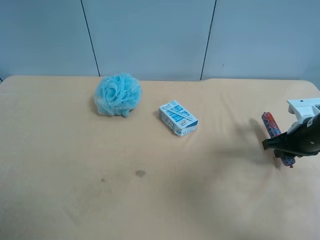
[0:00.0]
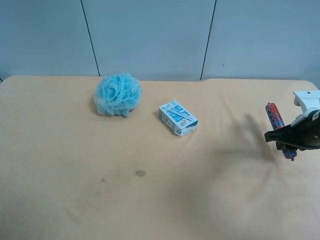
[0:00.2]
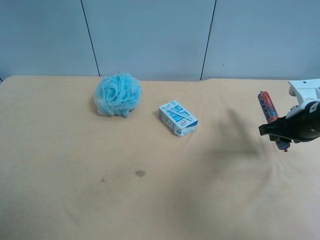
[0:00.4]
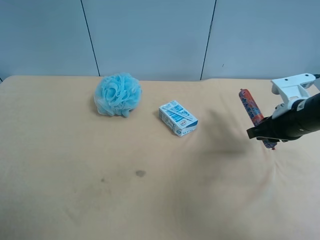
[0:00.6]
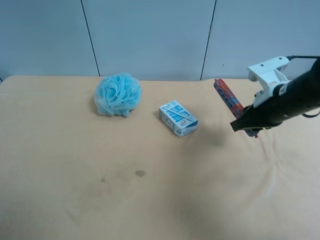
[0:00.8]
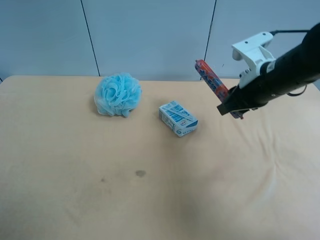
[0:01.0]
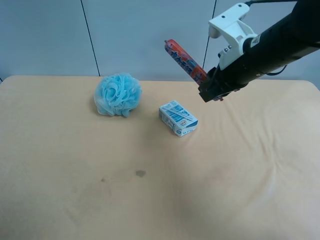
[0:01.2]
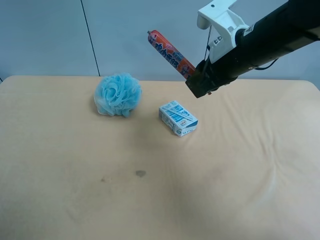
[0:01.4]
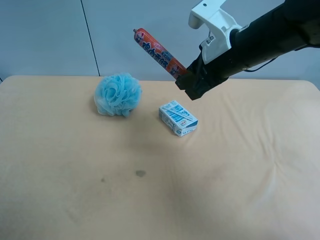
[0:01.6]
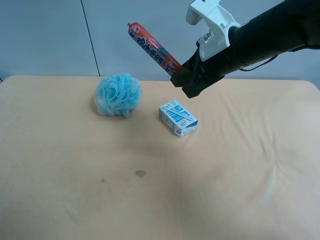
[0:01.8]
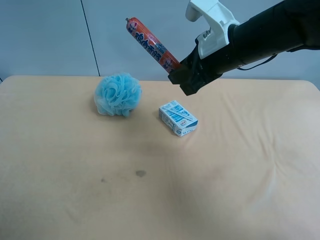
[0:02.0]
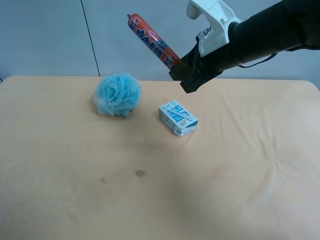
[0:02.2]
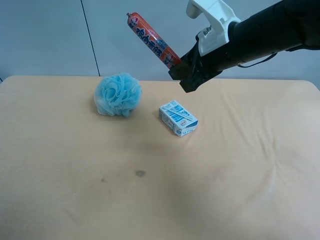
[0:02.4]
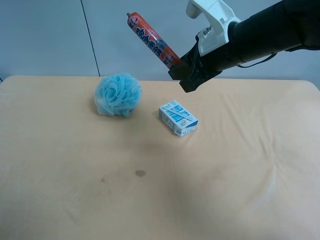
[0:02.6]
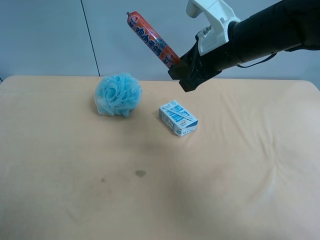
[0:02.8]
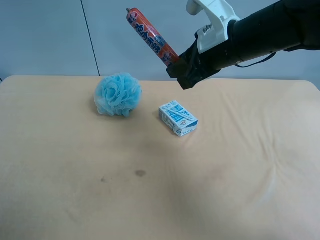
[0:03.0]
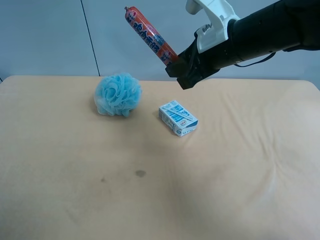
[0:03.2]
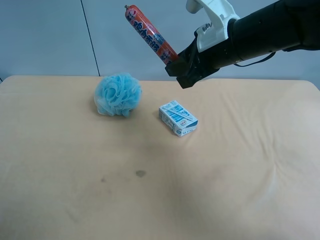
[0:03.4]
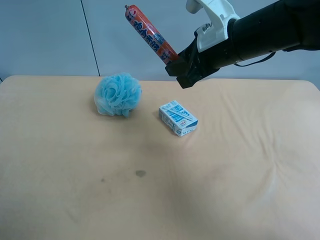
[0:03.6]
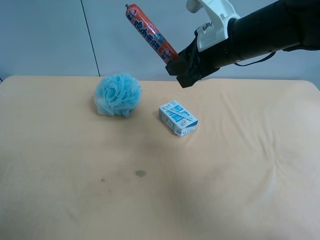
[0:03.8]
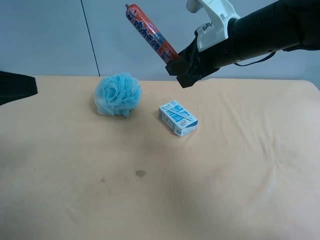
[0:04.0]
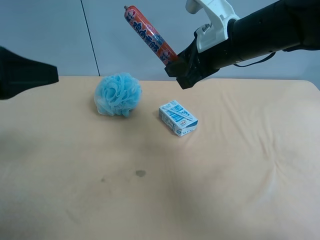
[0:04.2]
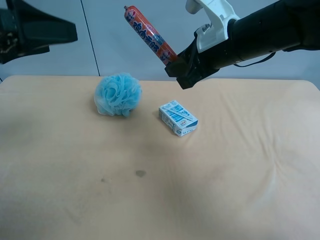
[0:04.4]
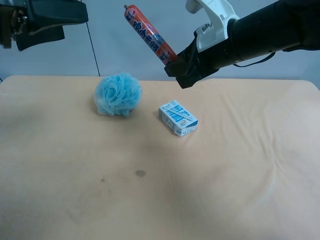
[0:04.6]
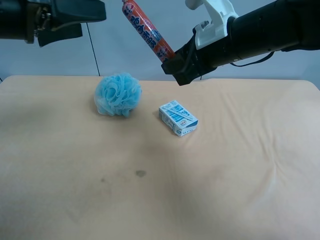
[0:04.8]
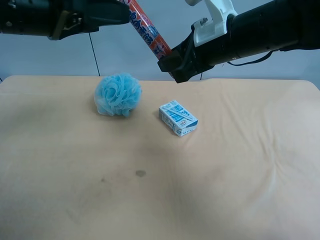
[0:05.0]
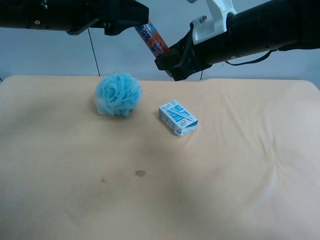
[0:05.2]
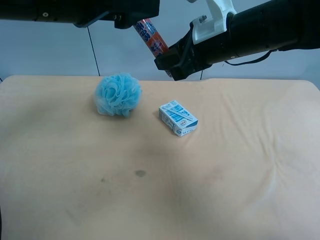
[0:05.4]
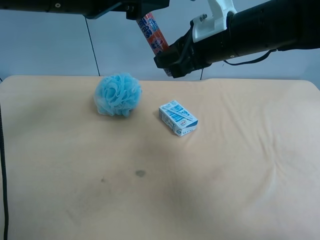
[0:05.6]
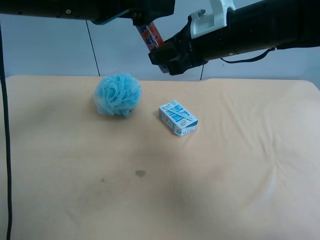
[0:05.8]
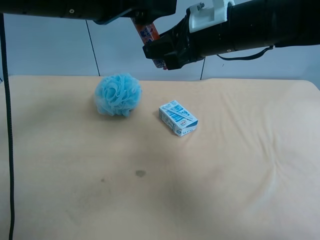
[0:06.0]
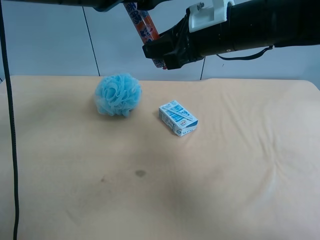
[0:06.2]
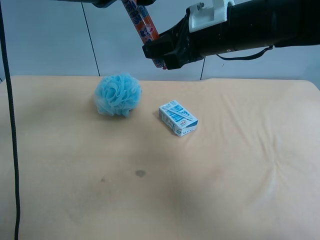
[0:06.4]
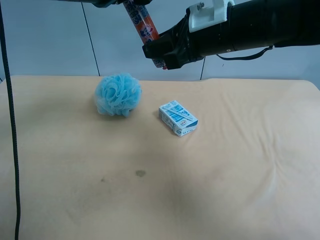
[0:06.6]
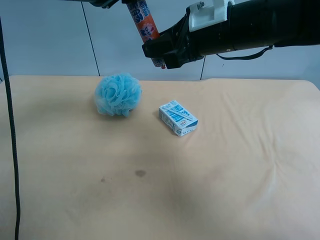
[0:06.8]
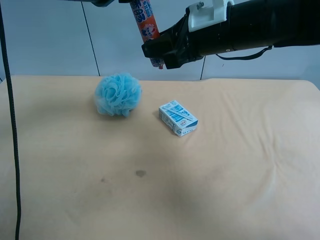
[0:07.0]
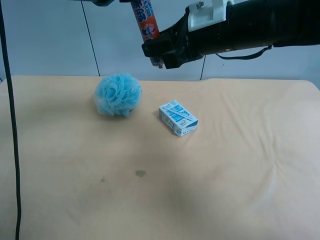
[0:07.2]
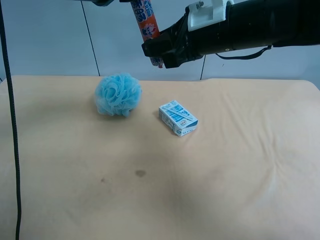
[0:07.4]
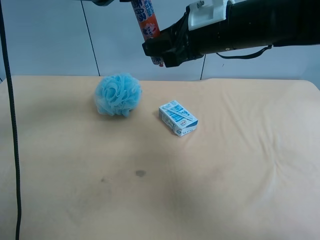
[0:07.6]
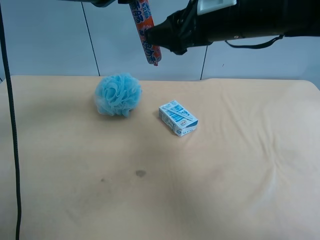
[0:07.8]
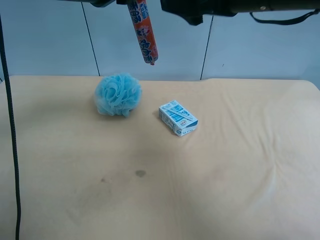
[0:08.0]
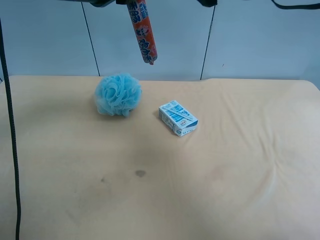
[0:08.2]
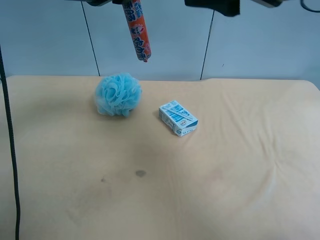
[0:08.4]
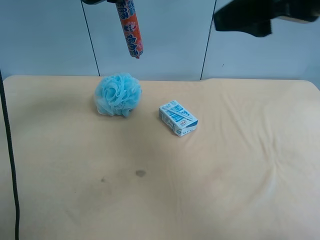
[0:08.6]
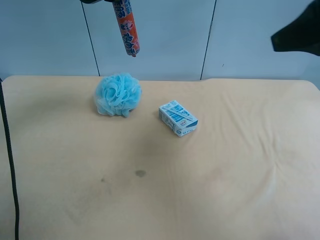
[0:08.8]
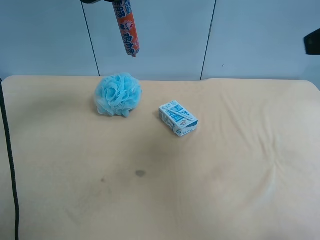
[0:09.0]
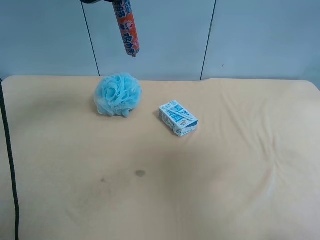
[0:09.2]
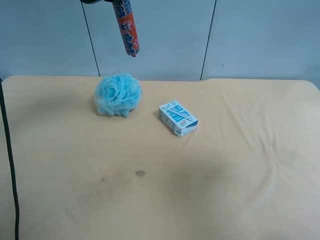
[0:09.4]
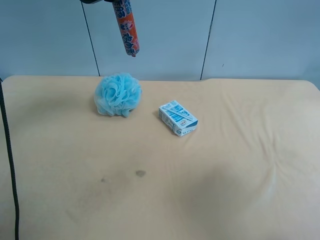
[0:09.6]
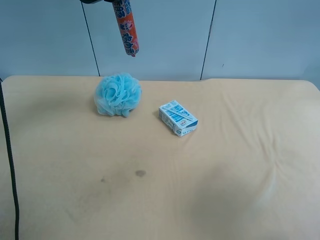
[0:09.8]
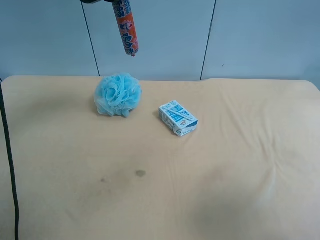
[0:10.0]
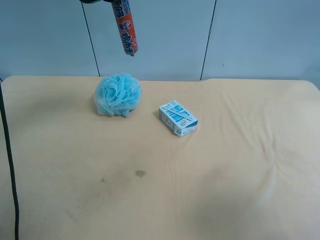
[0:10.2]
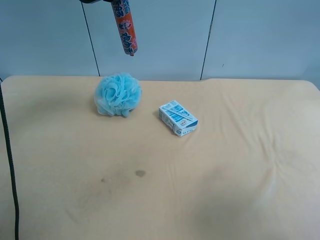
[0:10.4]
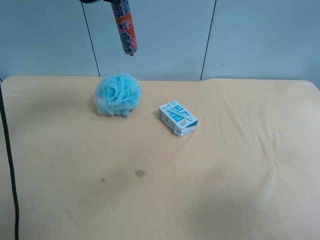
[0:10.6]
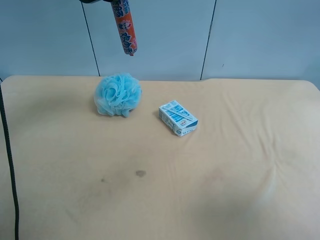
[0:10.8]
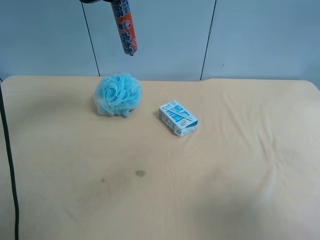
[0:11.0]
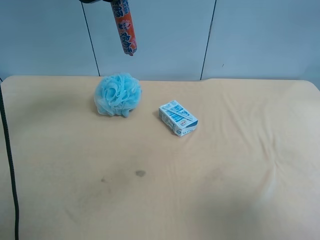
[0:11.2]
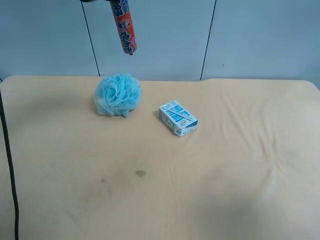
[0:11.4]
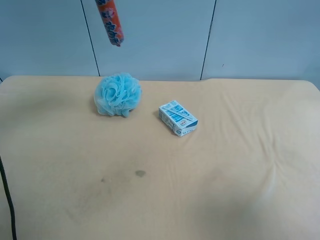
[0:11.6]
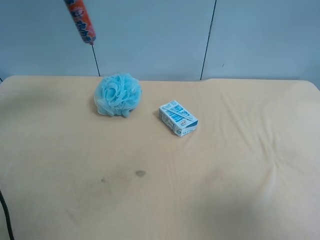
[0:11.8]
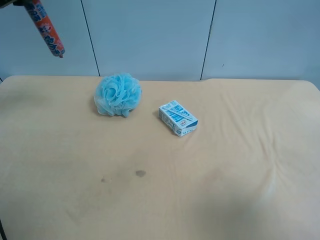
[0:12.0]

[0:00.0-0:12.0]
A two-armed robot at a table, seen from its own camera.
Task of the whole recording: use the right gripper to pick up the item and transfer it from the right gripper to the left gripper.
0:00.0 to 0:01.6: The right gripper heads to the left and upward, covering some 25 cm.
0:01.6 to 0:03.0: The grippers make only small movements.
0:03.0 to 0:04.4: The left gripper is displaced forward by about 20 cm.
0:04.4 to 0:06.0: The left gripper is displaced to the right and forward by about 15 cm.
0:06.0 to 0:07.6: The left gripper closes its fingers.
0:07.6 to 0:09.0: The right gripper goes some 25 cm backward, to the right and upward, and opens up.
0:09.0 to 0:10.4: The right gripper heads backward, downward and to the right, covering about 15 cm.
0:10.4 to 0:12.0: The left gripper shifts about 15 cm to the left.

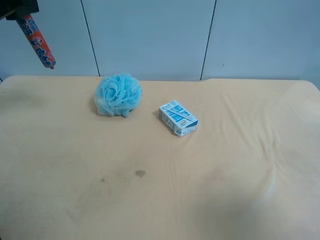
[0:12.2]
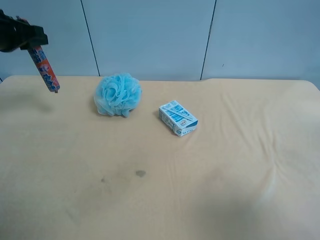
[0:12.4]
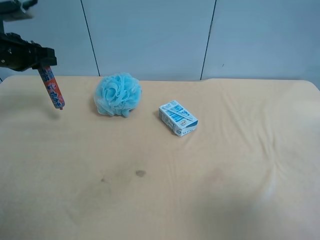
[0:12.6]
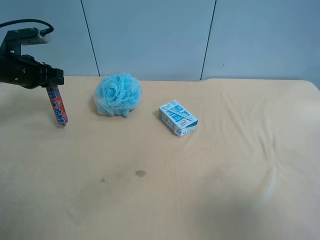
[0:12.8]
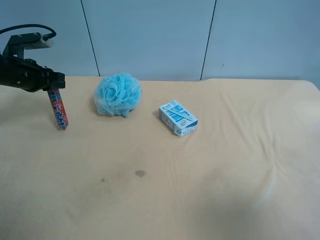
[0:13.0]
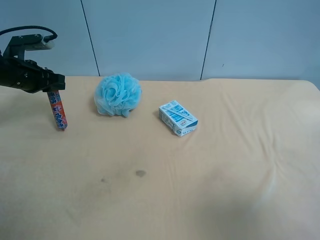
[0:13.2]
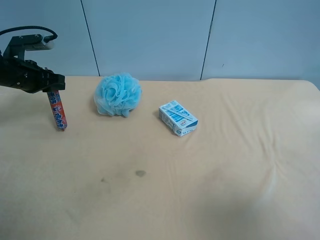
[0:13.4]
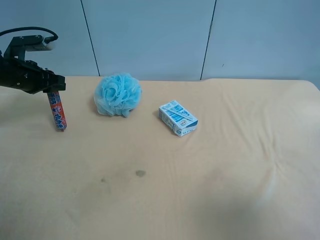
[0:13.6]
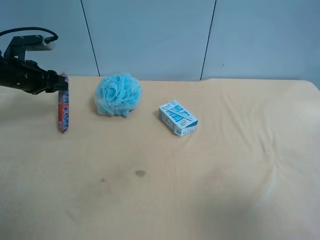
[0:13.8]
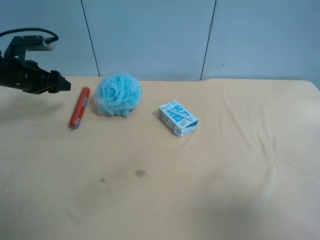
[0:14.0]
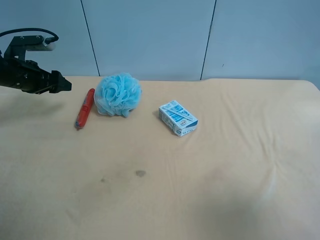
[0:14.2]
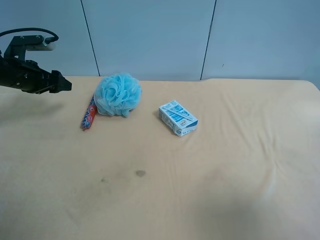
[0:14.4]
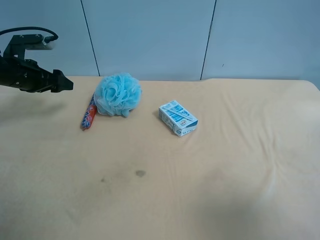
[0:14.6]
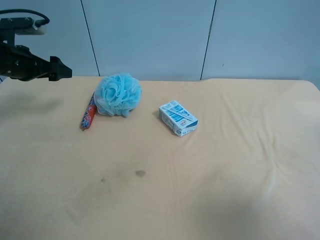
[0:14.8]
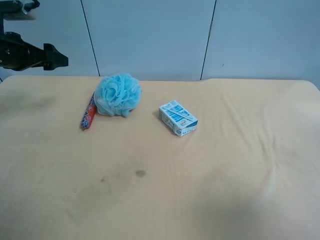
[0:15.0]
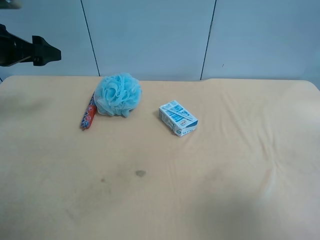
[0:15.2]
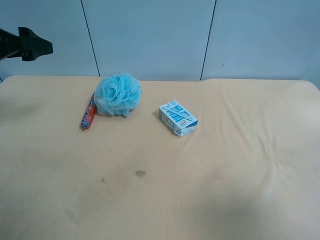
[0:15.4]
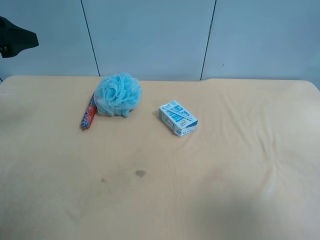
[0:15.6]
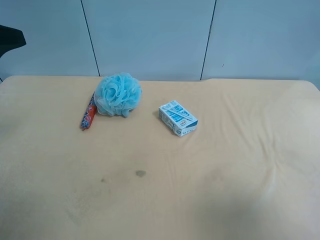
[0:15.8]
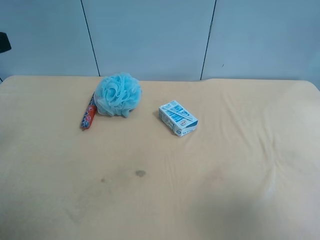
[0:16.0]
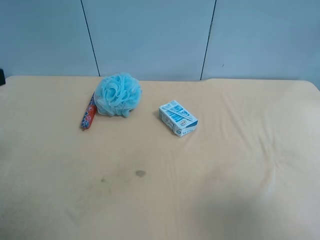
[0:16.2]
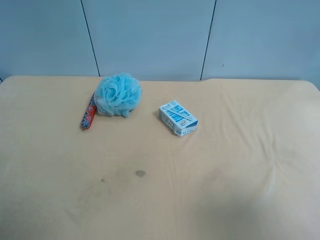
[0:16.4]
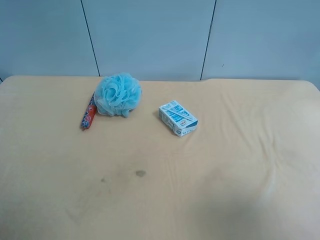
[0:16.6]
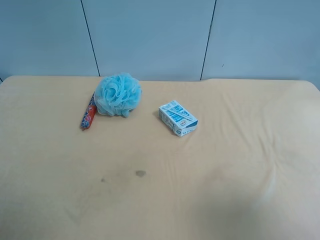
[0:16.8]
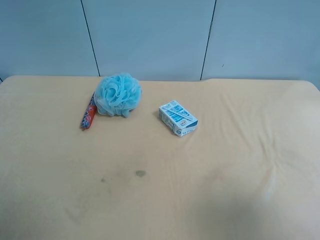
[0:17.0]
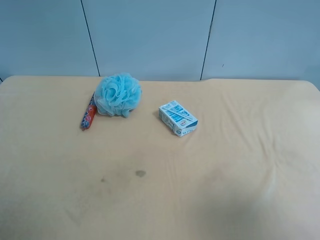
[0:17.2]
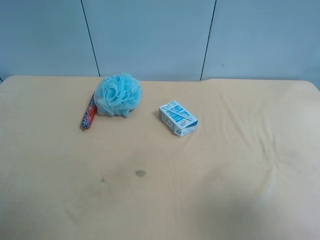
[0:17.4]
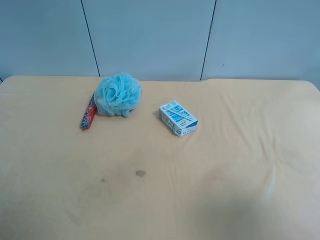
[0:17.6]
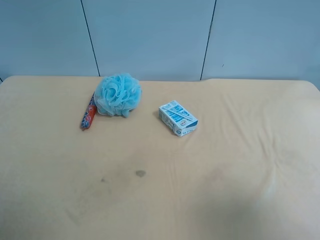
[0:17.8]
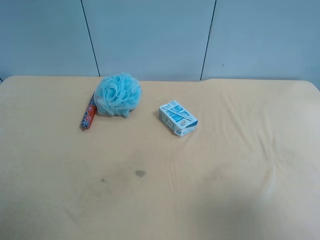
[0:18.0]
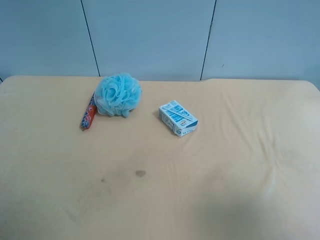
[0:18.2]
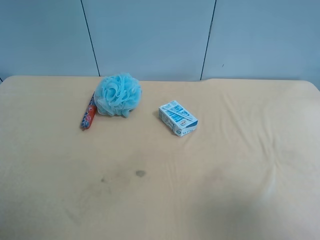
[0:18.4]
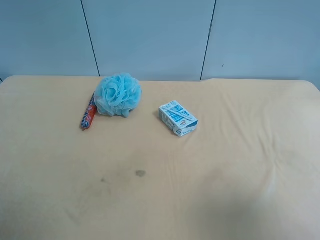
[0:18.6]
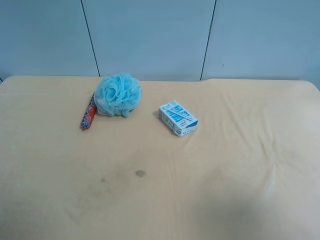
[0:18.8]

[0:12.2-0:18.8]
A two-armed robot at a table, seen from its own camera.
Task of the whole recording: use the right gripper to pick up the item and transfer it from the right gripper to the left gripper.
0:12.2 to 0:13.8: The left gripper is displaced downward by about 15 cm.
0:13.8 to 0:15.4: The left gripper shifts about 15 cm upward and backward, and opens up.
0:15.4 to 0:17.2: The left gripper shifts some 25 cm backward.
0:17.2 to 0:18.8: Neither gripper changes place.

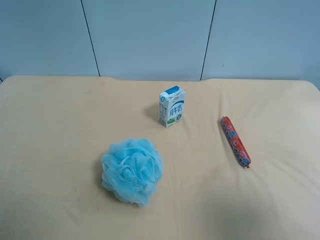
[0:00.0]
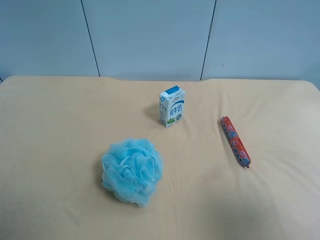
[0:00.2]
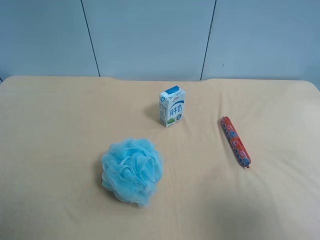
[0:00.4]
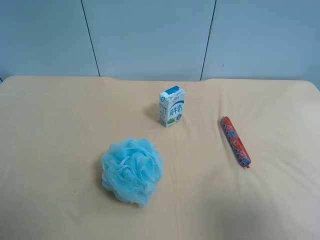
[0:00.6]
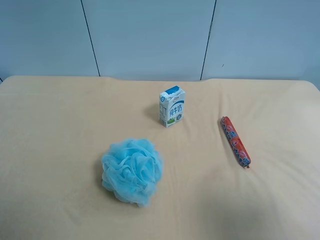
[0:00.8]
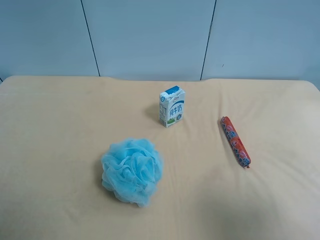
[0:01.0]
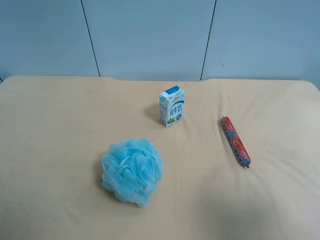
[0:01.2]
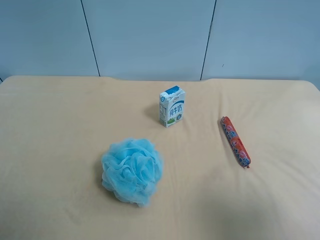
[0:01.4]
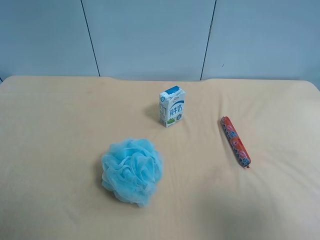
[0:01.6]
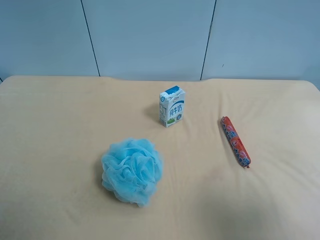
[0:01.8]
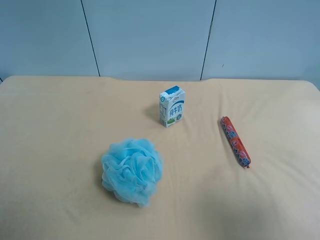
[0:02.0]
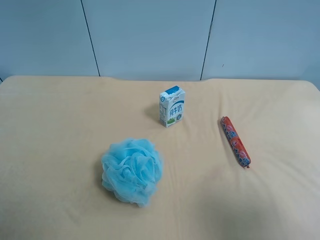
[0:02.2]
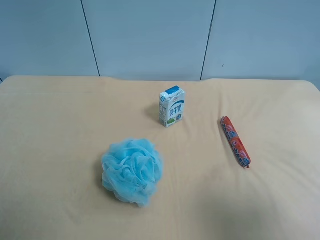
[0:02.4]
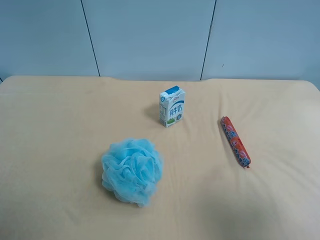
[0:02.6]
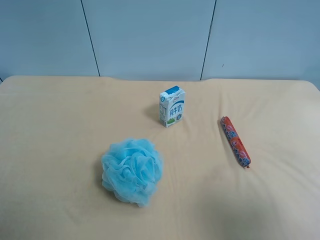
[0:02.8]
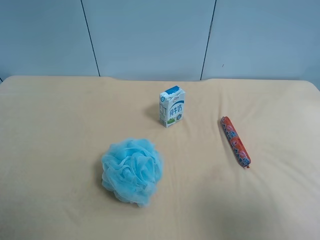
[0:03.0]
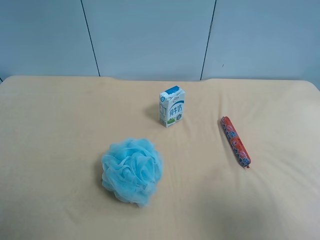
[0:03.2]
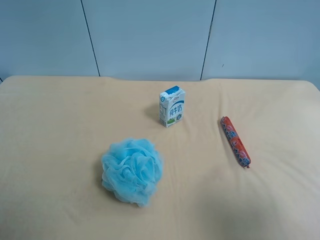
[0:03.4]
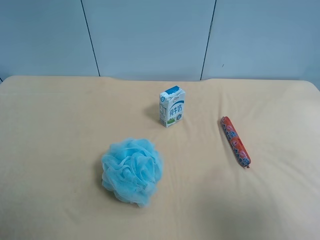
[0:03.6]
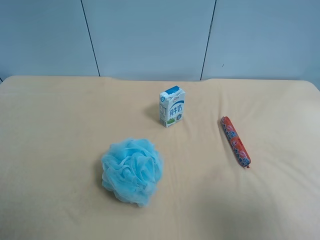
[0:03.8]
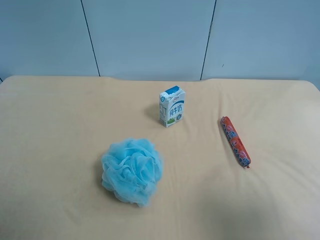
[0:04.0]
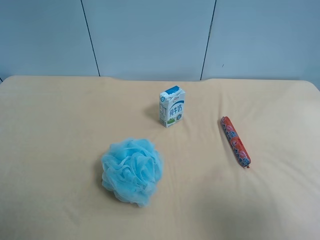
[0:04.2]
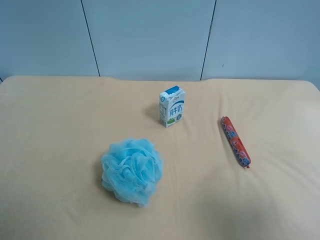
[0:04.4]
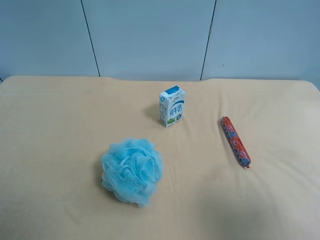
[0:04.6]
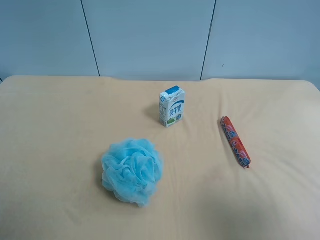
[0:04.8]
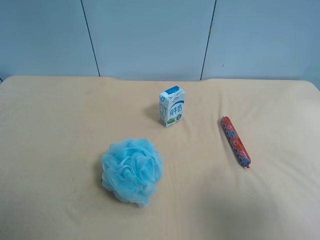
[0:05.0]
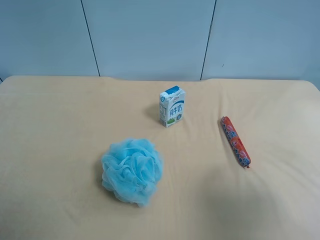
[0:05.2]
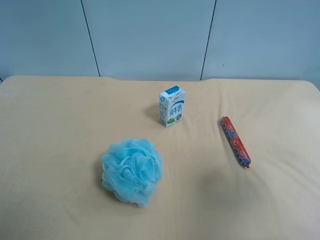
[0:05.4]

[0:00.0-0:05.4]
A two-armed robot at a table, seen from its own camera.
Task of the whole recording: use the right gripper to pick up the item and transfer it from the right gripper to the left gripper.
0:01.4 to 0:04.0: Both grippers stay about where they are.
0:04.0 to 0:05.4: The right gripper is displaced forward by roughly 5 cm.
